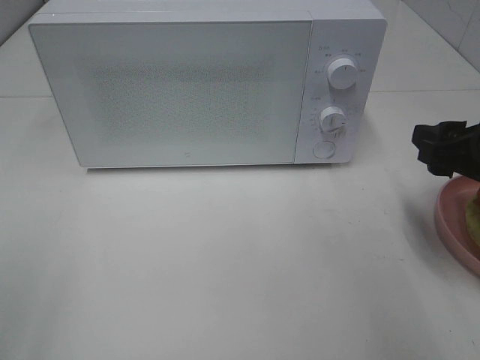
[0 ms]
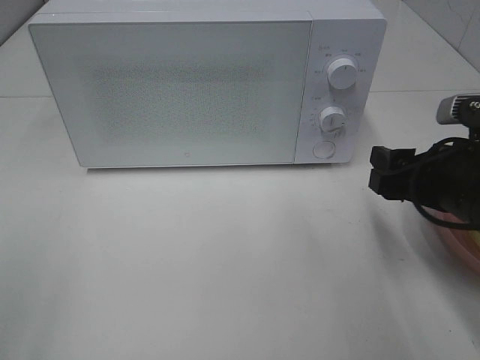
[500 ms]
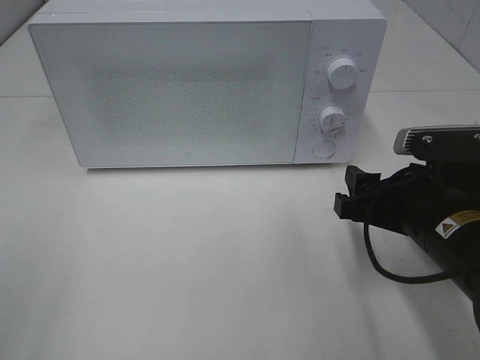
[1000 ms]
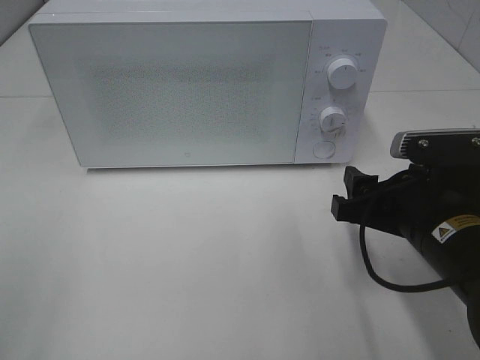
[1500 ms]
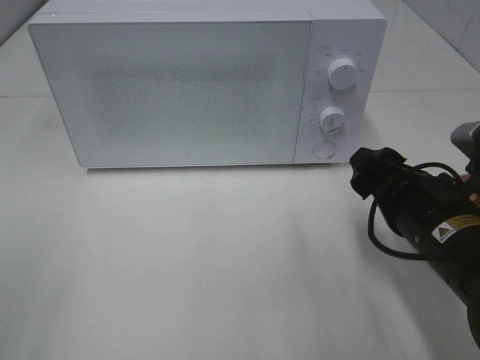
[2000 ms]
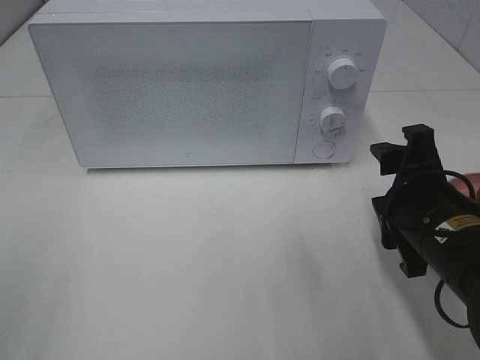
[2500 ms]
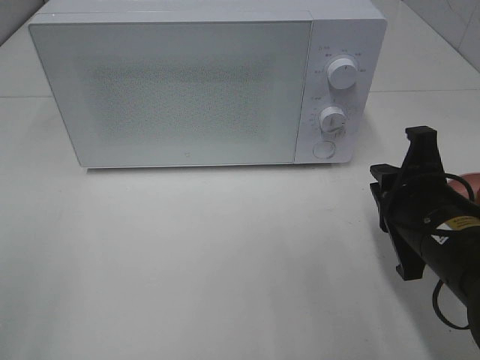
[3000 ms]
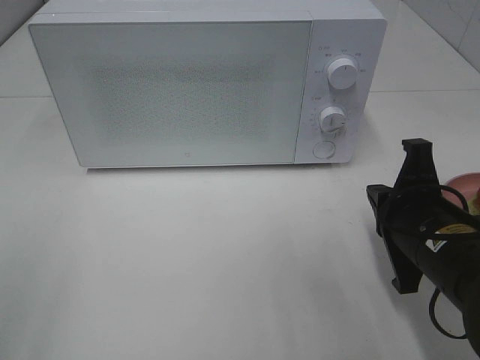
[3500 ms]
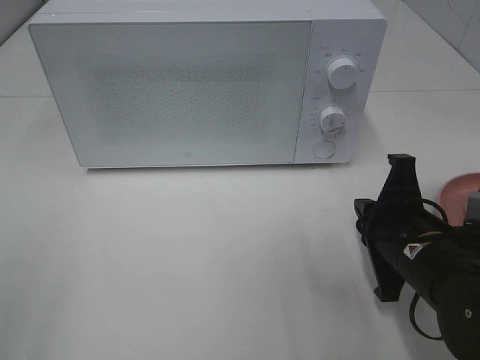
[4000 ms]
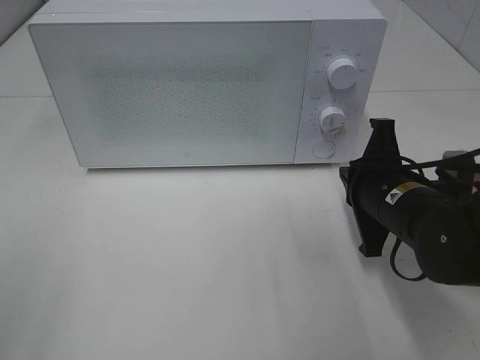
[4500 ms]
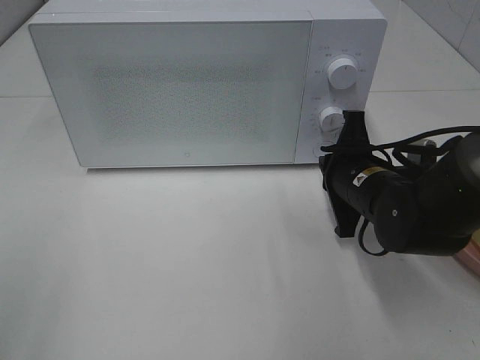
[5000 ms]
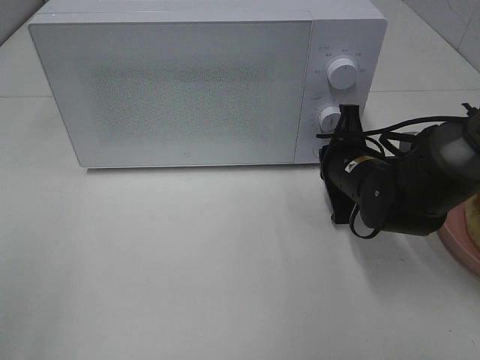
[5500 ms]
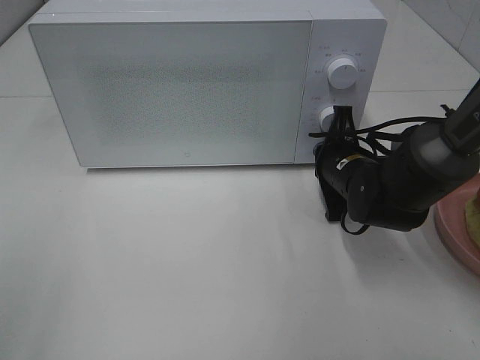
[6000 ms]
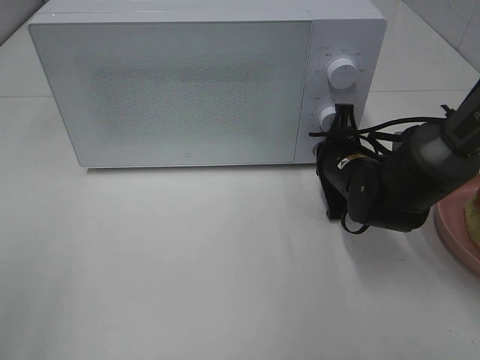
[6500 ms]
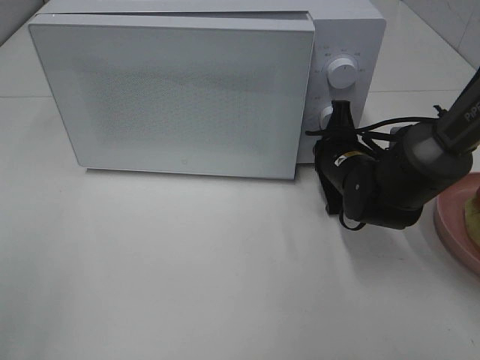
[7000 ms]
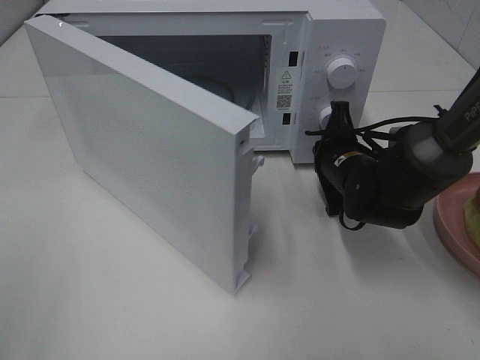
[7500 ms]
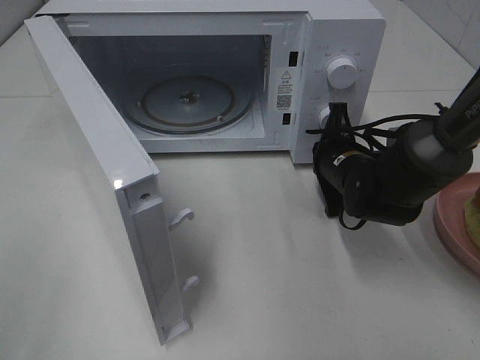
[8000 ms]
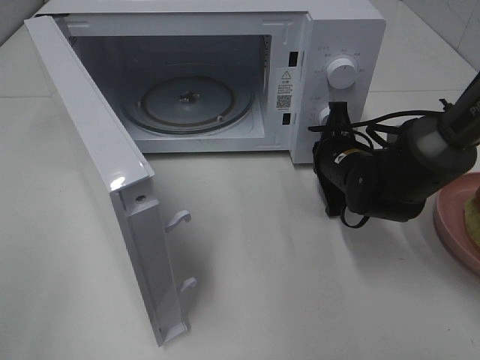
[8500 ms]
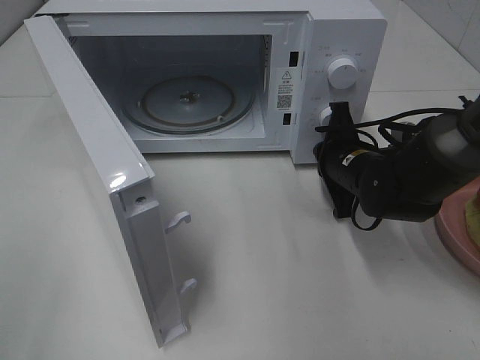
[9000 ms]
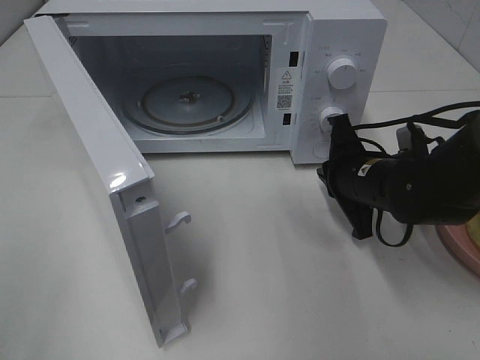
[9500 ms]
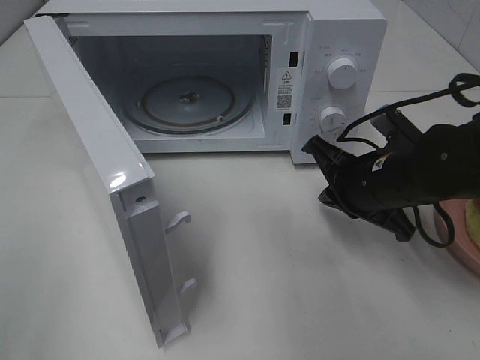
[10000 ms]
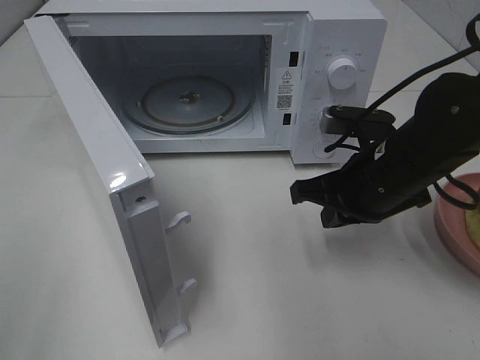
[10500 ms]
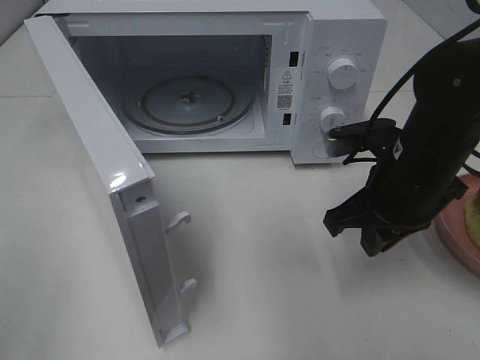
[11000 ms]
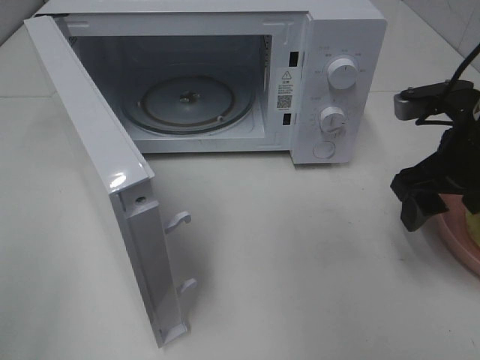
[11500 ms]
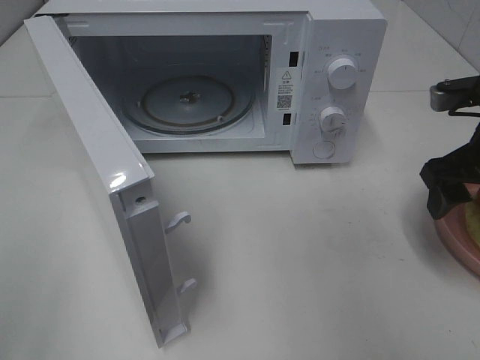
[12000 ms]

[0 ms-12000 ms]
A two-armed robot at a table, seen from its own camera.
Task of the whole recording: Heat Sandwich.
Step, 0 ms to 9000 ms: Right hand: press the switch.
0 ms to 2000 ms: The right gripper heads to the left, covering some 10 cm.
2000 ms to 4000 ms: The right gripper closes up.
4000 ms to 6000 ms: The right gripper is displaced forward by approximately 15 cm.
8000 ms to 10000 ms: The right gripper goes roughly 5 cm backward.
10000 ms to 12000 ms: The right gripper goes some 15 cm to the right and upward, and opens up.

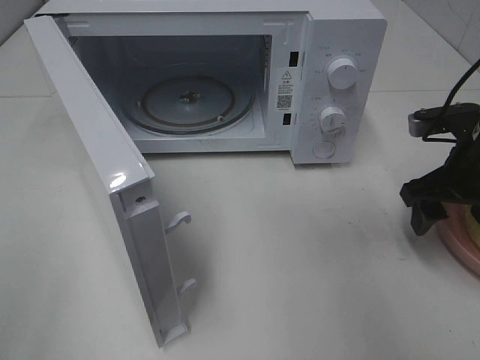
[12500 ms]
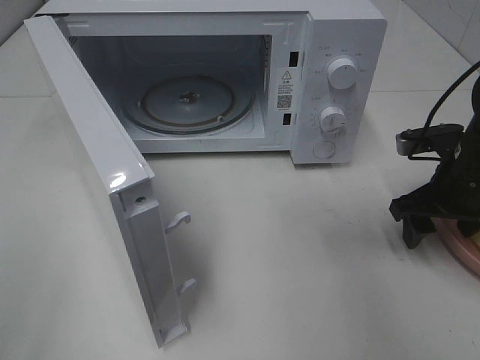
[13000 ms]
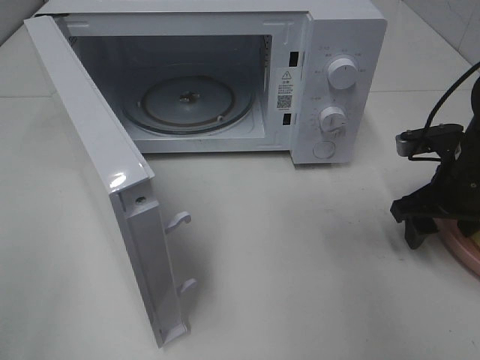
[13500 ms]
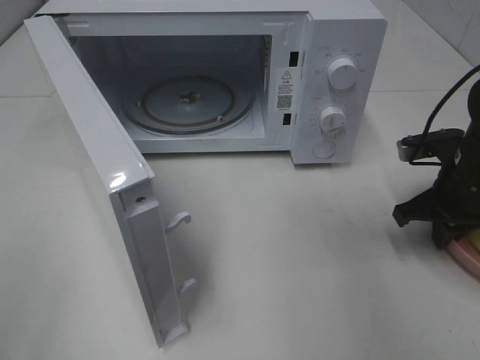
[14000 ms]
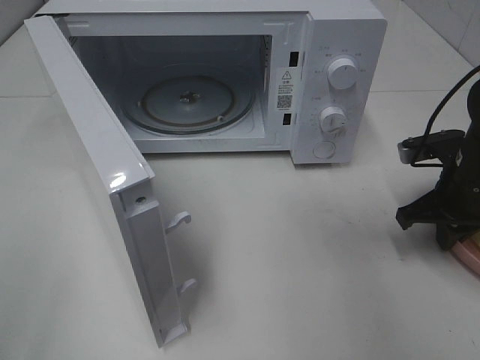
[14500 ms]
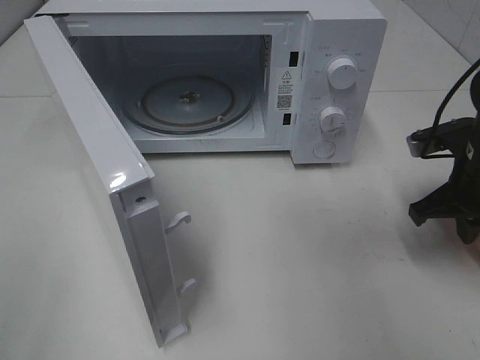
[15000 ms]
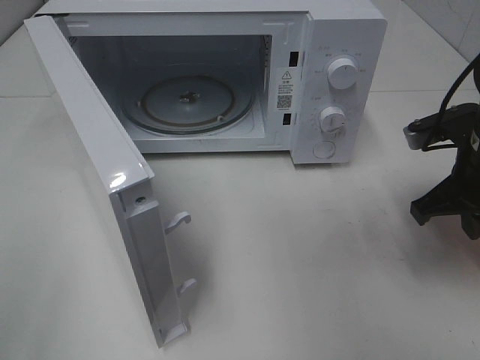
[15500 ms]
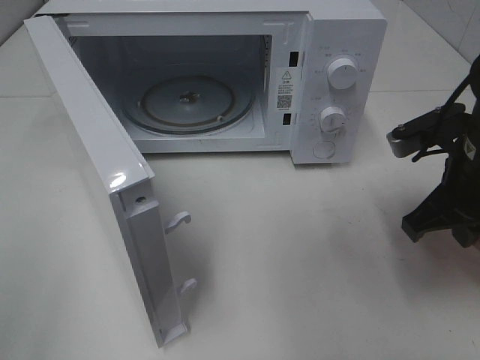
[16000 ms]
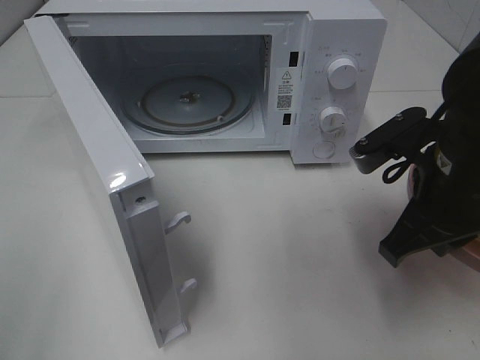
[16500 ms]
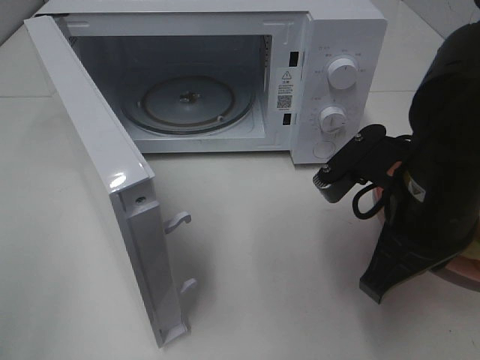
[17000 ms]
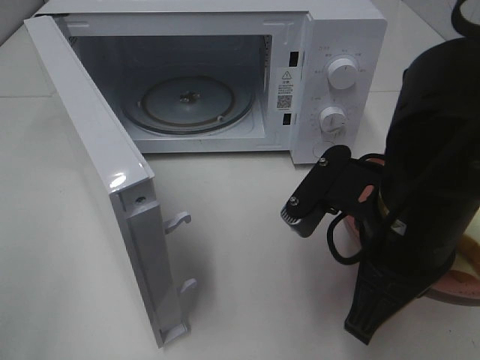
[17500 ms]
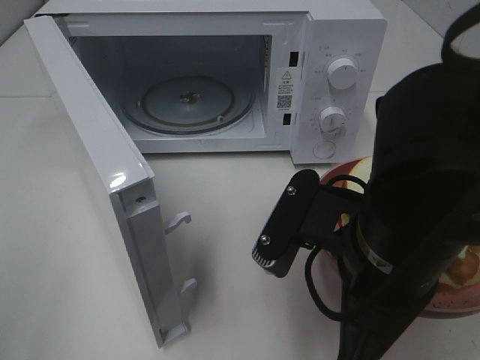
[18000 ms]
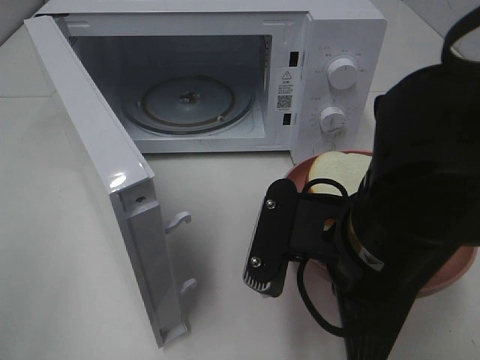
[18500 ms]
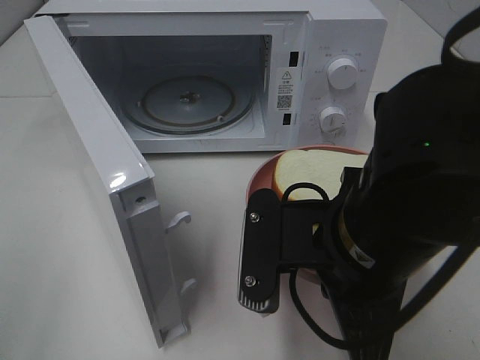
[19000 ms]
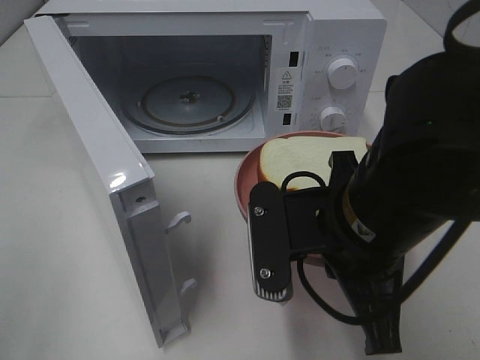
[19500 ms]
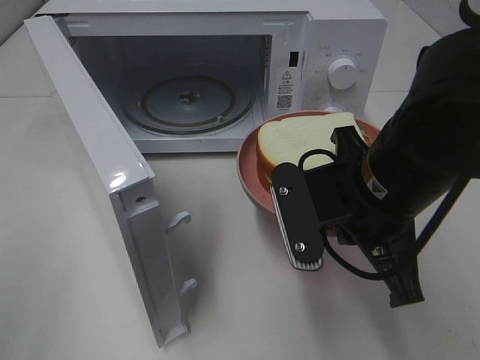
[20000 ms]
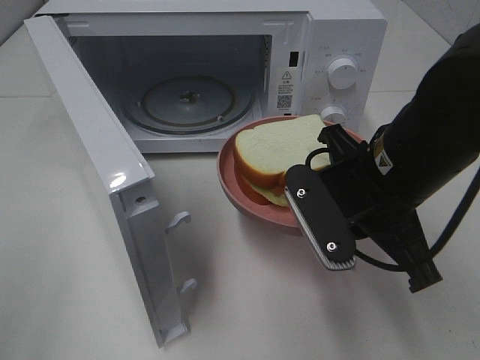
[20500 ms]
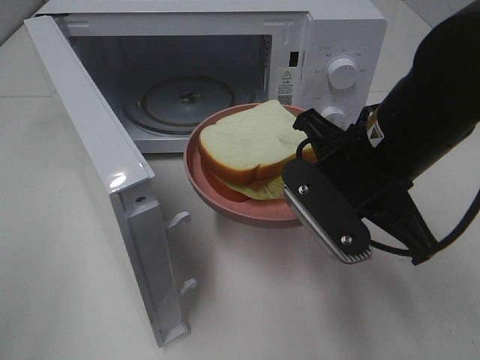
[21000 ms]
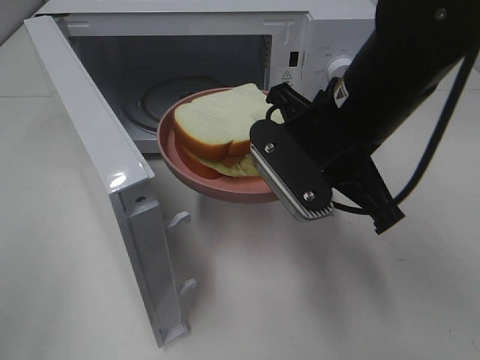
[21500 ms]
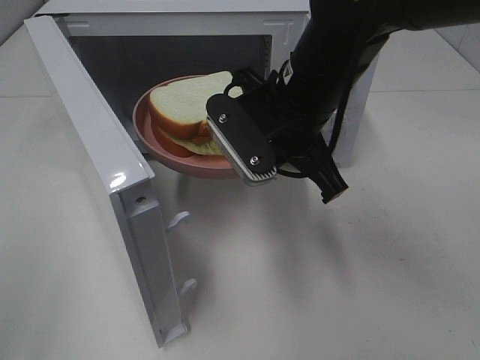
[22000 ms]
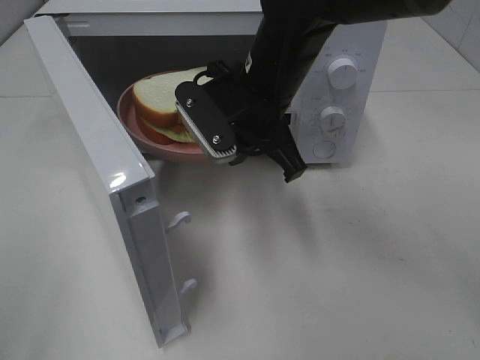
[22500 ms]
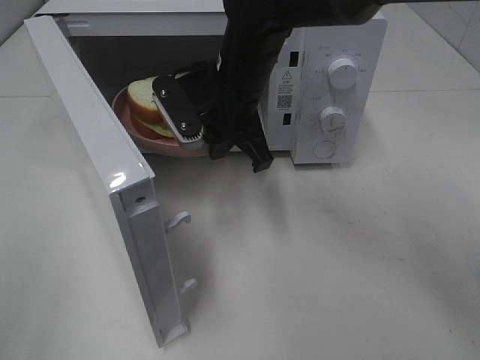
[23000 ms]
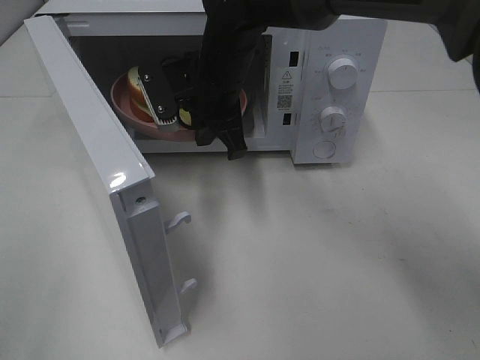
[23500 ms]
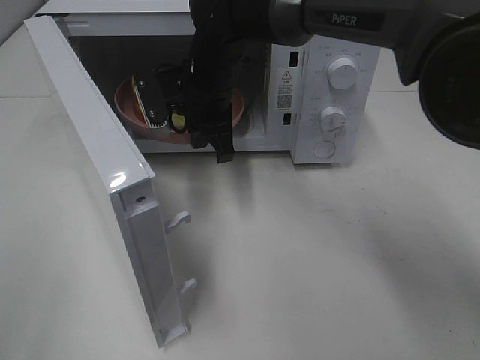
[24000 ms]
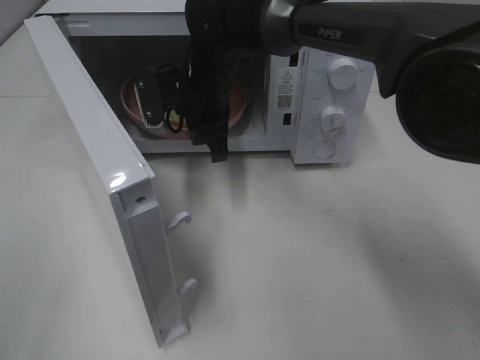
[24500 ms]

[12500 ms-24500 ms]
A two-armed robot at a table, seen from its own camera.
Task of the whole recording: Heat Sandwich.
Step, 12500 ms to 14500 ms: Right hand: grab the plate with the sandwich.
12500 ms to 14500 ms: The right gripper closes up.
14500 ms to 16500 ms: The right gripper is displaced to the left, backward and upward by about 15 cm.
16500 ms to 18500 ms: The right gripper shifts some 10 cm to the left and backward.
18500 ms to 20500 ms: The right gripper goes about 5 cm forward.
20500 ms to 22500 ms: The right gripper moves forward and to the left, approximately 15 cm.
22500 ms to 24500 ms: The right gripper shifts about 10 cm forward and to the left.

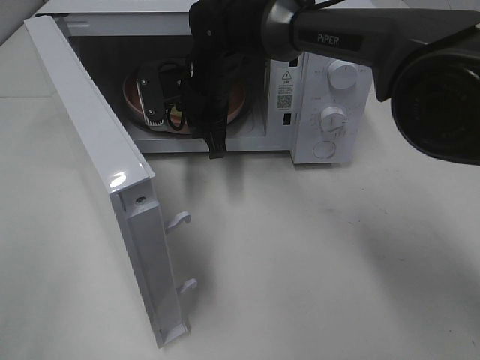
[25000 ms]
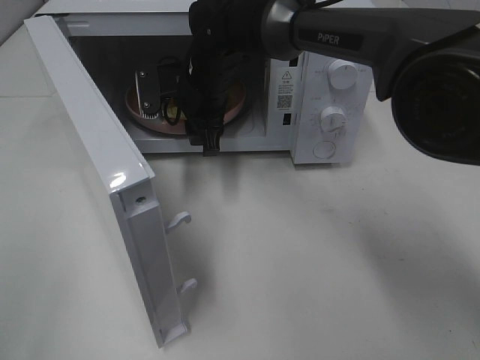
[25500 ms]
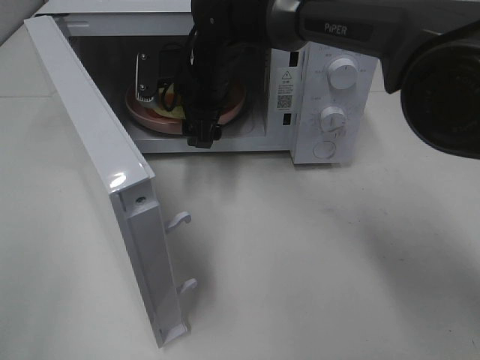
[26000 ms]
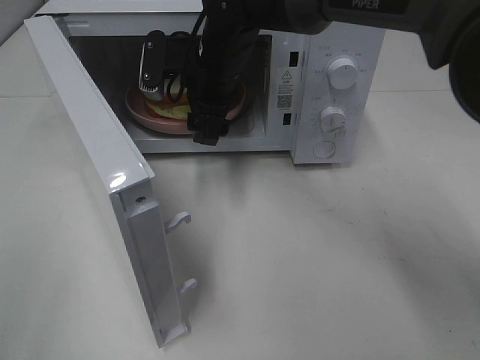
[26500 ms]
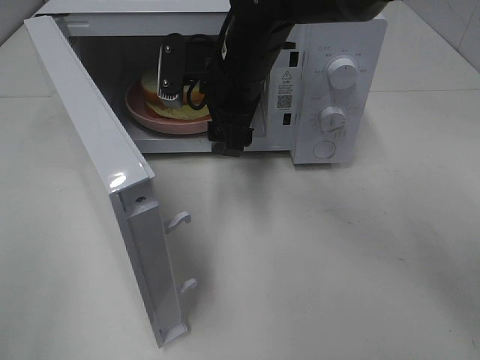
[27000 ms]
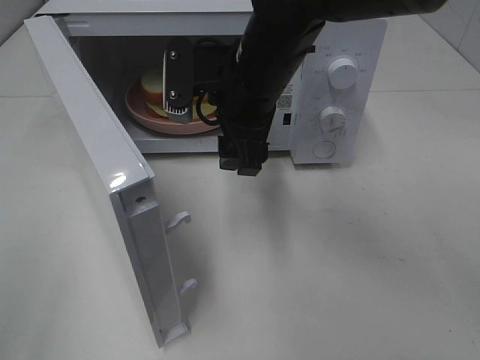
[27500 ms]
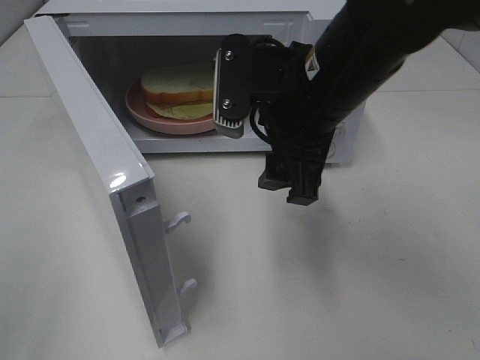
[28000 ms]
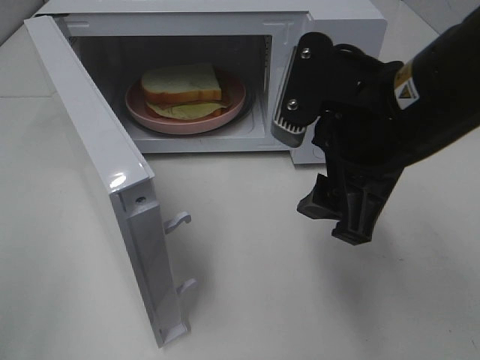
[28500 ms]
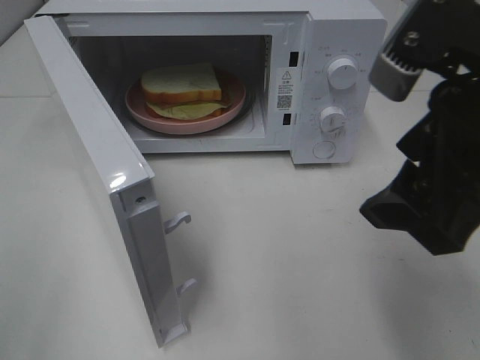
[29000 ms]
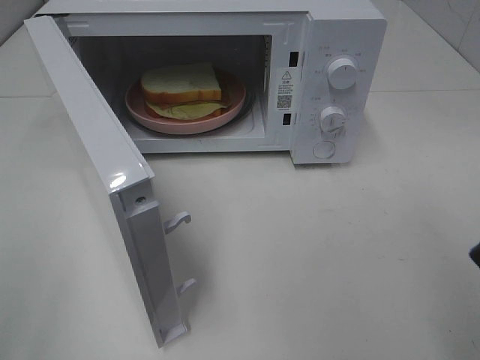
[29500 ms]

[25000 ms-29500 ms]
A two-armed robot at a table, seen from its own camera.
Task of the whole recording: Heat Sandwich.
25000 ms to 27000 ms: The right gripper goes some 5 cm backward, and opens its fingers.
27000 ms to 29500 ms: The right gripper moves backward, to the right and upward, roughly 35 cm.
